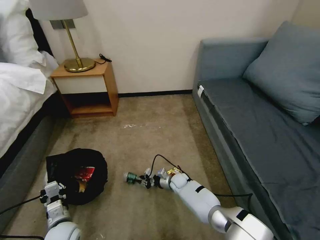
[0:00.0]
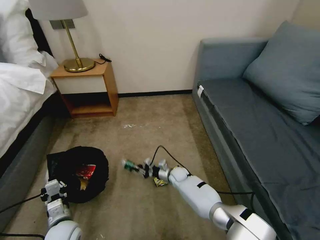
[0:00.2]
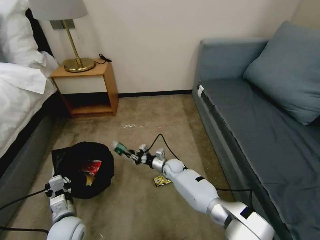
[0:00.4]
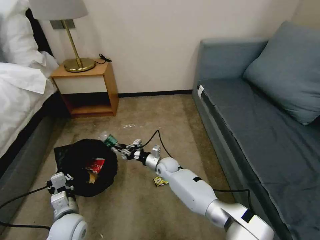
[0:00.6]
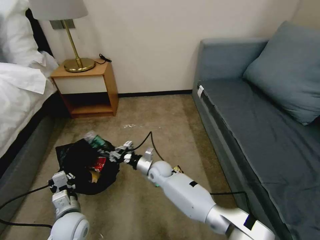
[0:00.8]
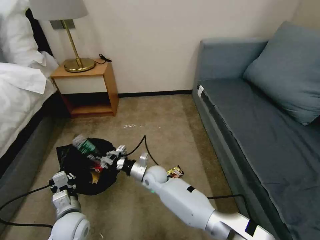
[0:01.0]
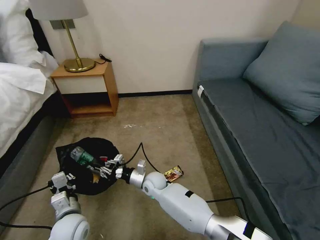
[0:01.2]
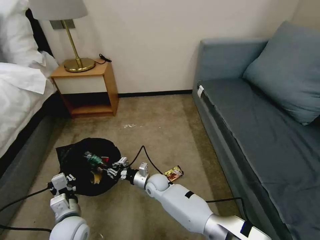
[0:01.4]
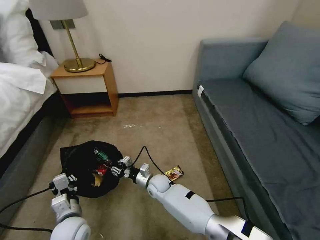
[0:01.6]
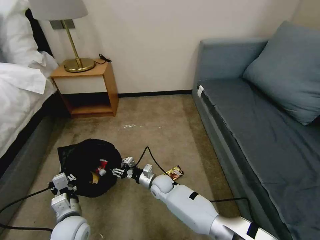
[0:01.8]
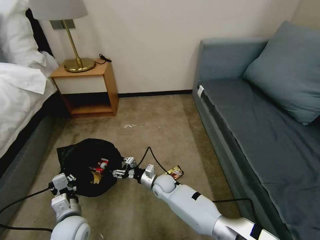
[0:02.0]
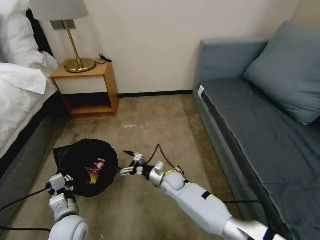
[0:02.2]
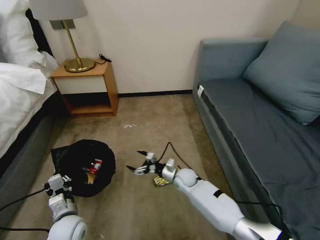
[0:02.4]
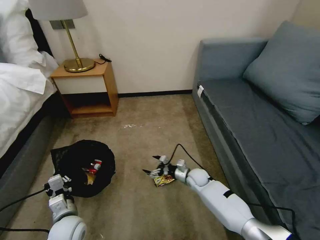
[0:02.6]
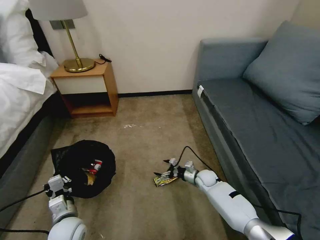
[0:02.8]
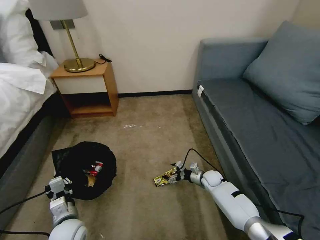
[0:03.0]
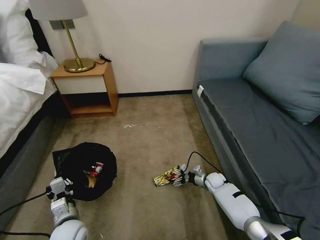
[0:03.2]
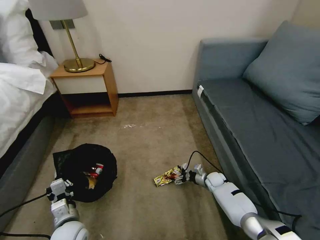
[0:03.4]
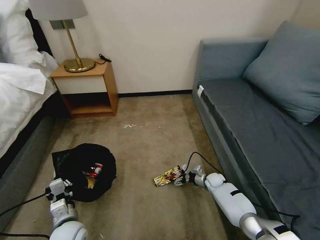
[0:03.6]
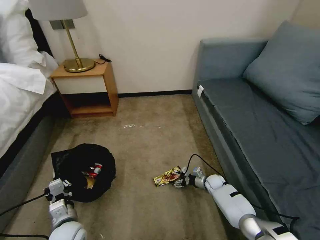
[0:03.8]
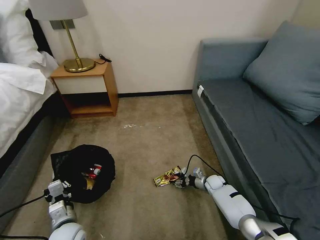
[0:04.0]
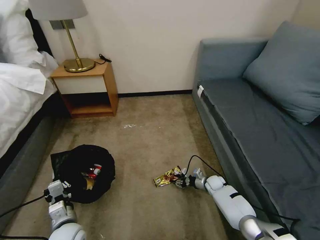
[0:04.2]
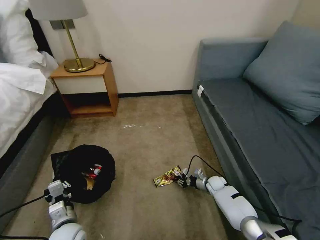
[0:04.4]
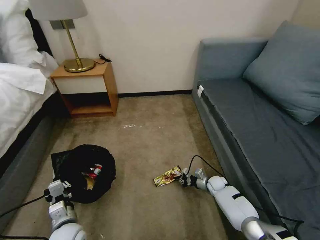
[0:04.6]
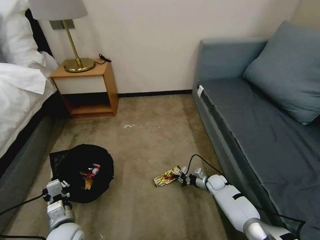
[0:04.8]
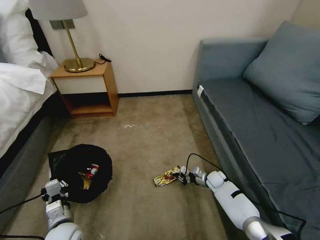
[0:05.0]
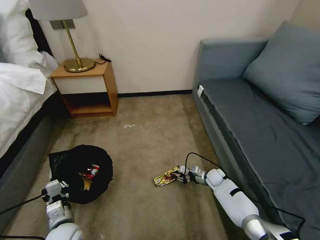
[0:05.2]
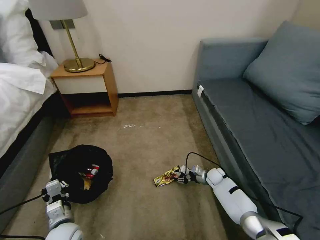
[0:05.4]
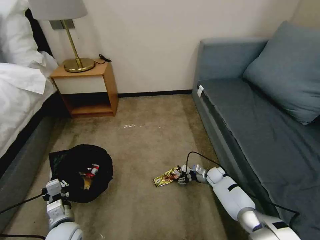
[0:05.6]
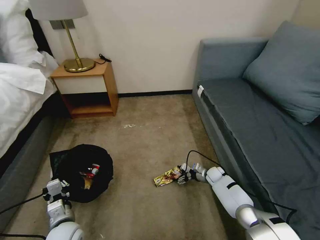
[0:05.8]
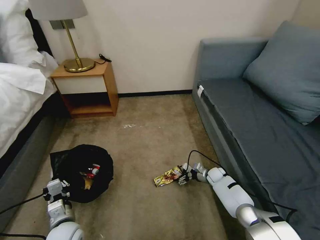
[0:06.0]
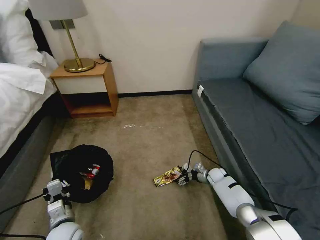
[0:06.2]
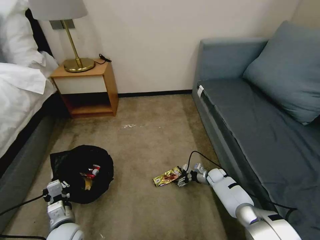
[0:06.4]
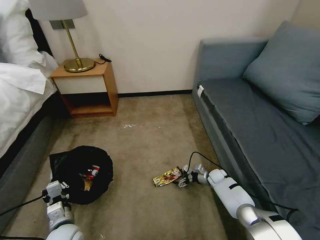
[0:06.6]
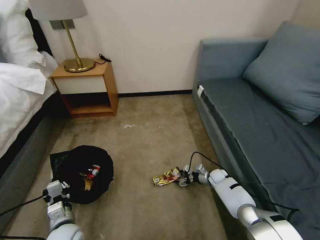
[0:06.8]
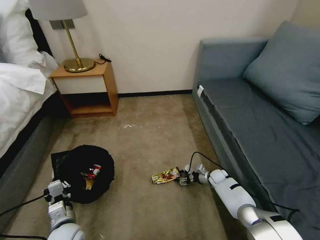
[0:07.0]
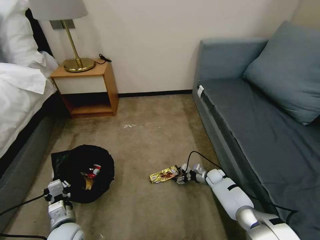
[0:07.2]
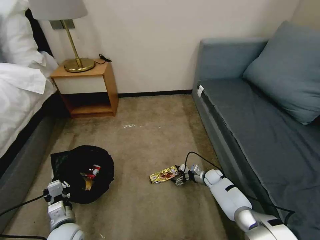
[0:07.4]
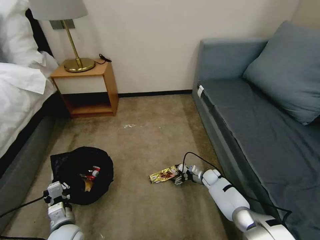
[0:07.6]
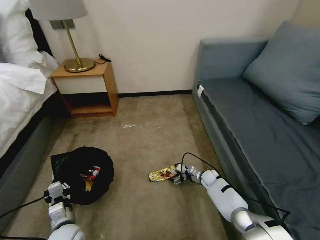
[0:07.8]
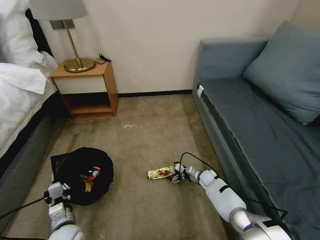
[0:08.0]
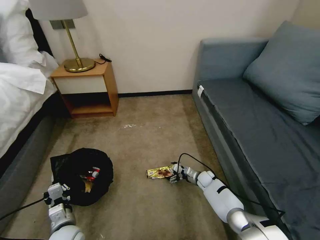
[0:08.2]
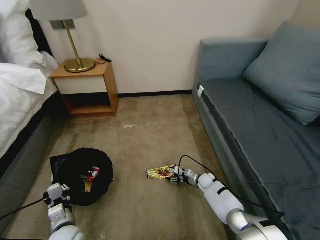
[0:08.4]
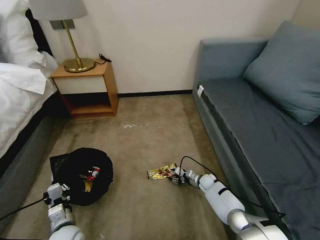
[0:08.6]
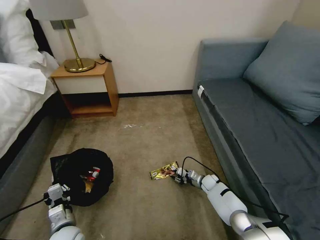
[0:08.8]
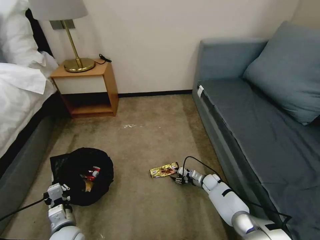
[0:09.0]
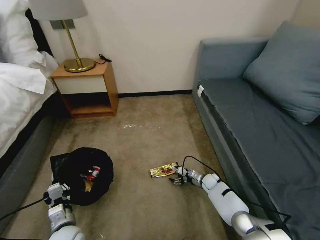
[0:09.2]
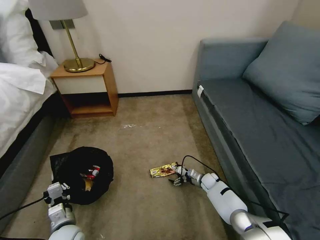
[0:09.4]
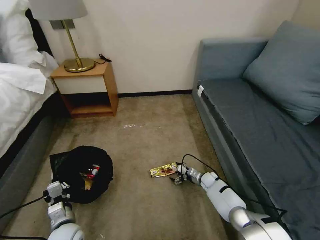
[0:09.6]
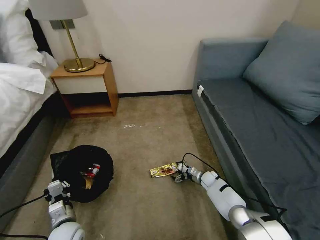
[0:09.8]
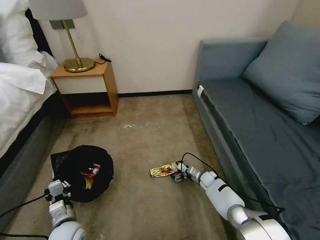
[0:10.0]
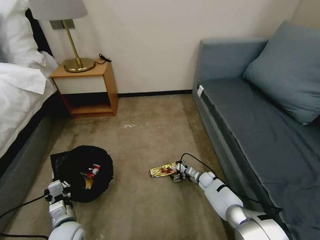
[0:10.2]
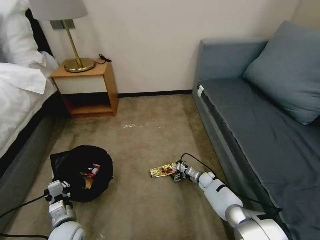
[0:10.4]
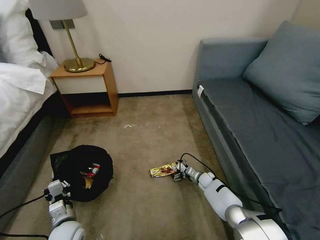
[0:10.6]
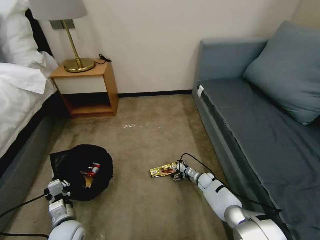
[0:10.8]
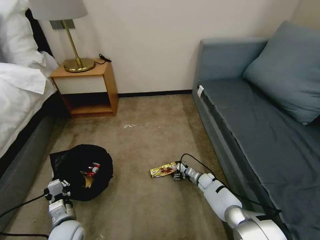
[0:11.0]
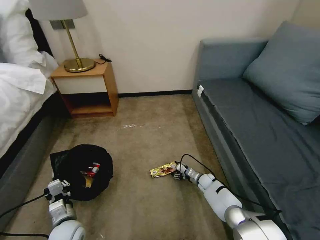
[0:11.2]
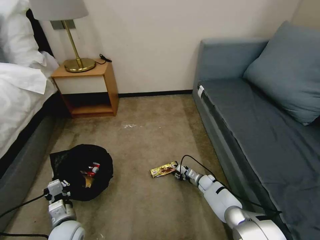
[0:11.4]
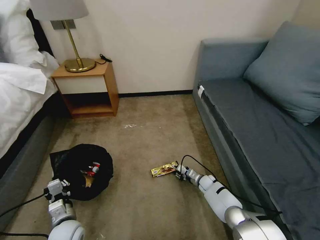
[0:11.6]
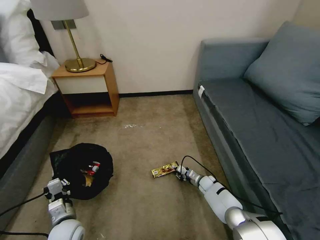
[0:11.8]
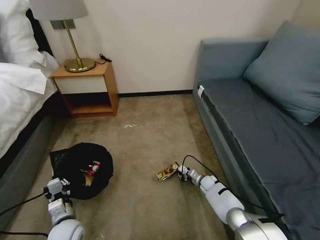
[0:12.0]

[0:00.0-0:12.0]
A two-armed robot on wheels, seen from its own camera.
Task of the whole recording: Pick up the trash bin, then pick up the garbage on the floor and place it into the trash bin.
0:00.0 to 0:01.6: The right gripper moves to the left and upward, about 15 cm; the left gripper moves upward, some 5 cm.
0:01.6 to 0:03.0: The right gripper moves to the right, approximately 25 cm, and opens its fingers.
0:03.0 to 0:04.4: The right gripper closes up.
0:04.4 to 0:06.0: The right gripper opens.
0:06.0 to 0:07.6: There are only small adjustments of the grippers.
0:07.6 to 0:09.0: The right gripper closes up.
0:09.0 to 0:10.4: The right gripper opens.
0:10.4 to 0:12.0: The right gripper closes up.

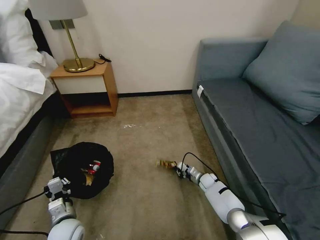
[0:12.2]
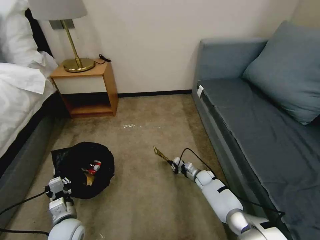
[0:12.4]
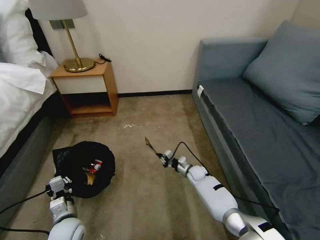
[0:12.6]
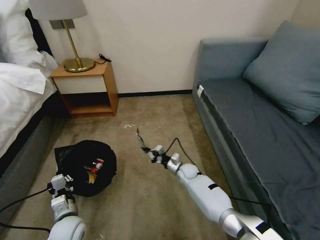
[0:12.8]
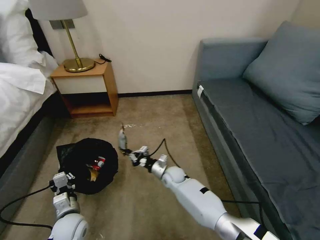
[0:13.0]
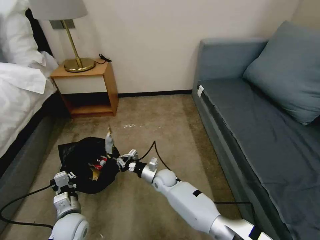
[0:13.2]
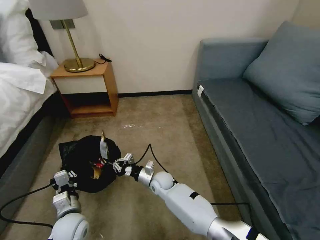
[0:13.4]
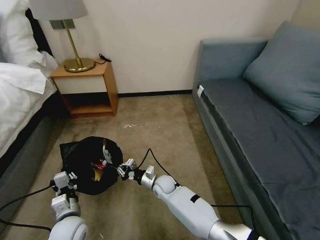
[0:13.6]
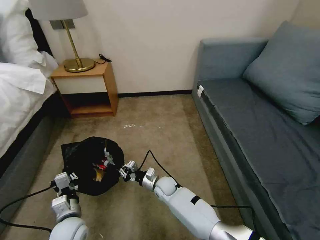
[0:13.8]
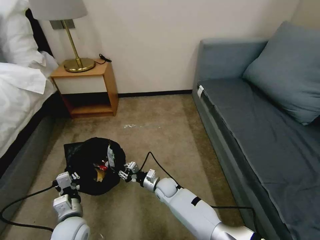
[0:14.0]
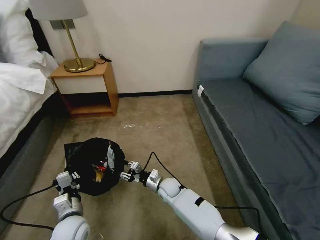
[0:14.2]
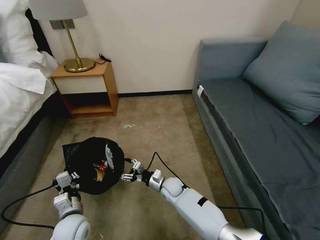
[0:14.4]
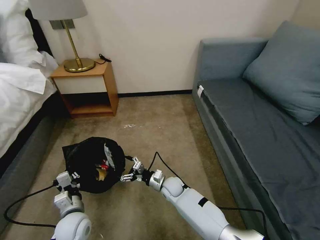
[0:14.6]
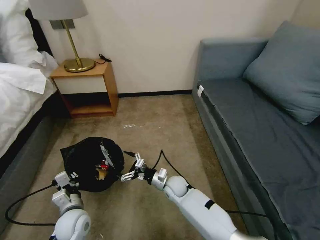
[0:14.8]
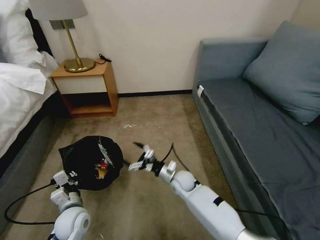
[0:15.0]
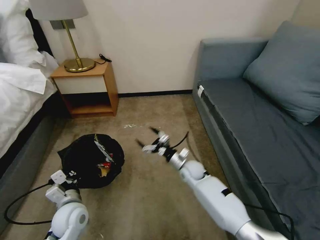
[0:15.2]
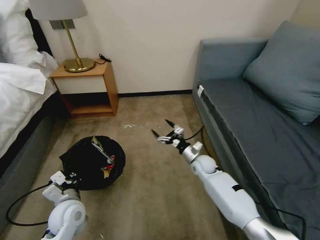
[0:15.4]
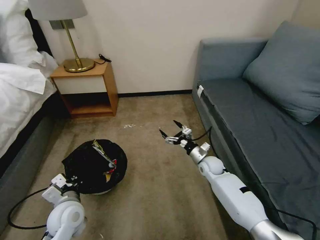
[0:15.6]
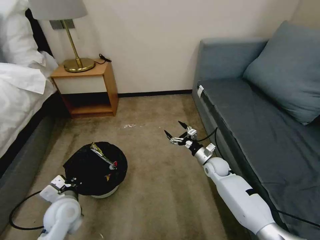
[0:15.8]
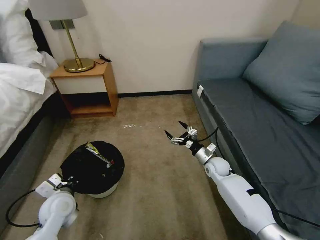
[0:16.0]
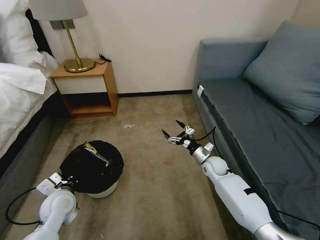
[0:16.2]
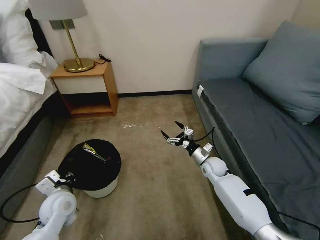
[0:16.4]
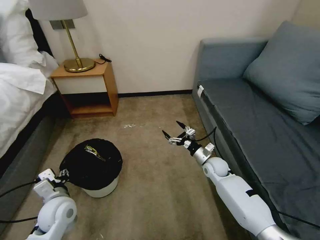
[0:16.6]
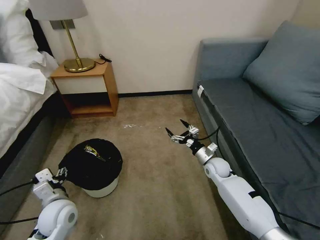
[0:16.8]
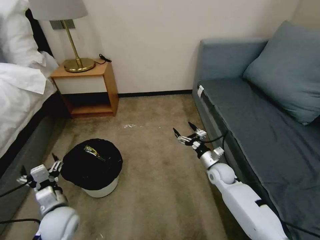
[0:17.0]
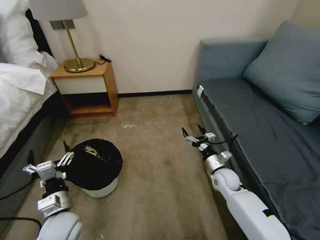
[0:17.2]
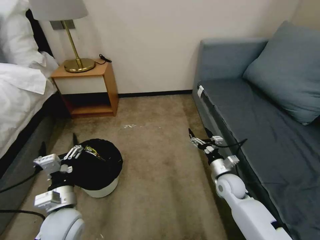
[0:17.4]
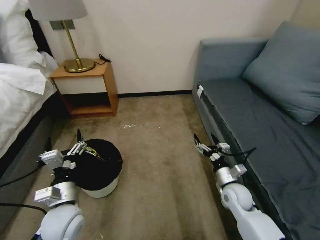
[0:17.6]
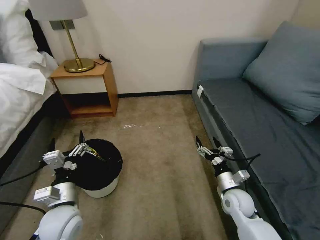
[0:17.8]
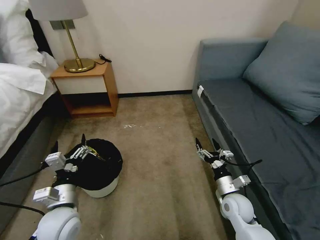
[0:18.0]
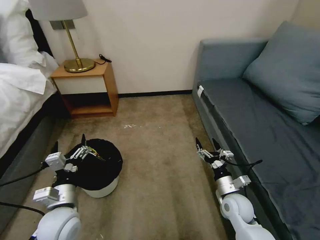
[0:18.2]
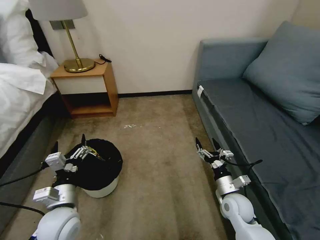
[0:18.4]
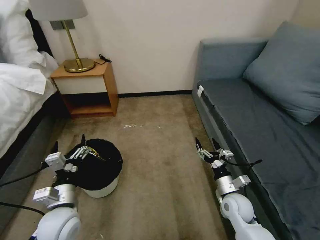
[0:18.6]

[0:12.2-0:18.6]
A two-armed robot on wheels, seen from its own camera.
Task of the whole recording: Pick up the trash bin, then pick up the garbage on the floor and place it into the trash bin.
0:12.2 to 0:13.8: The right gripper goes approximately 25 cm to the left.
0:13.8 to 0:15.4: The left gripper moves some 5 cm. The right gripper is displaced to the right, upward and forward by approximately 20 cm, and opens up.
0:15.4 to 0:17.0: The left gripper opens its fingers. The right gripper travels to the right by roughly 5 cm.
0:17.0 to 0:18.6: The right gripper moves backward, approximately 10 cm, while the left gripper moves upward, approximately 5 cm.

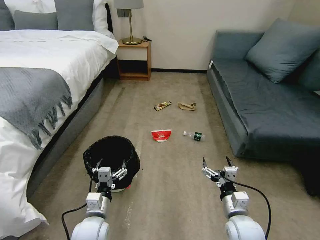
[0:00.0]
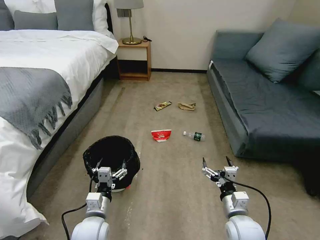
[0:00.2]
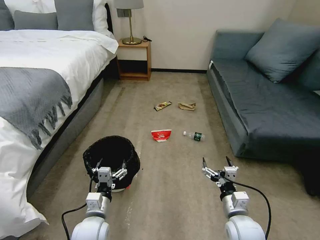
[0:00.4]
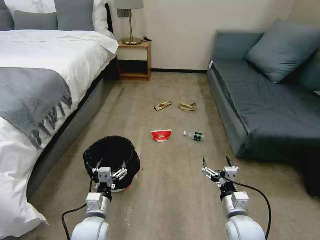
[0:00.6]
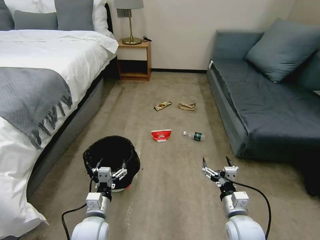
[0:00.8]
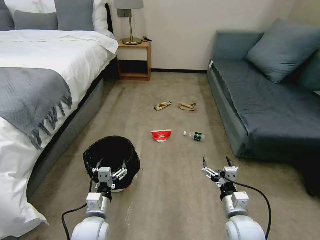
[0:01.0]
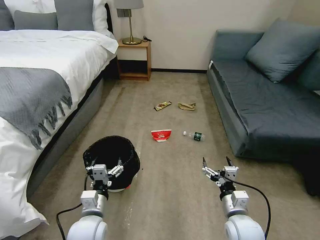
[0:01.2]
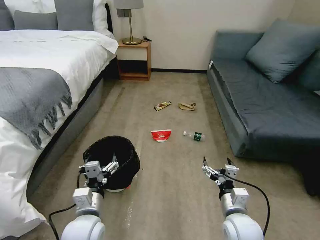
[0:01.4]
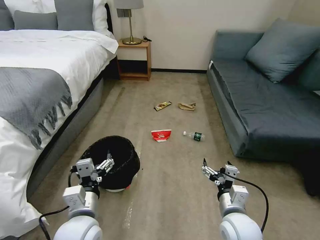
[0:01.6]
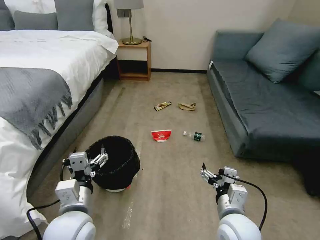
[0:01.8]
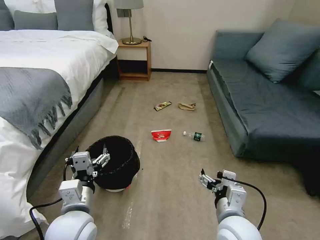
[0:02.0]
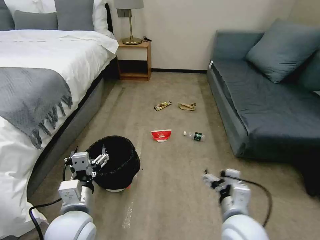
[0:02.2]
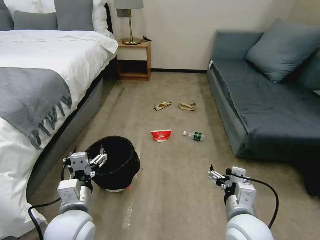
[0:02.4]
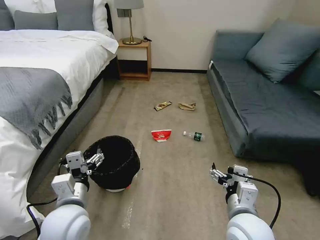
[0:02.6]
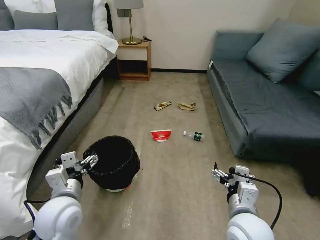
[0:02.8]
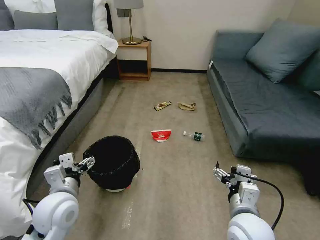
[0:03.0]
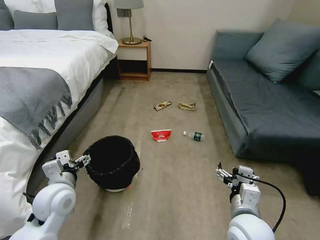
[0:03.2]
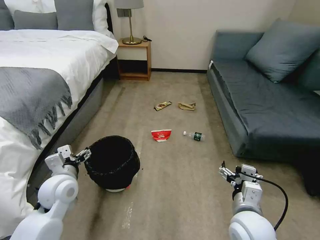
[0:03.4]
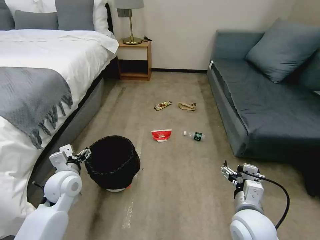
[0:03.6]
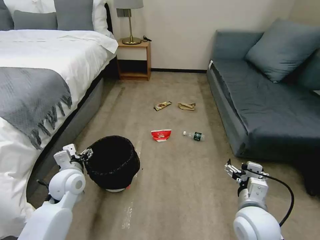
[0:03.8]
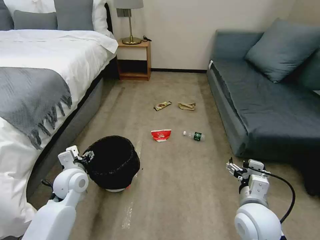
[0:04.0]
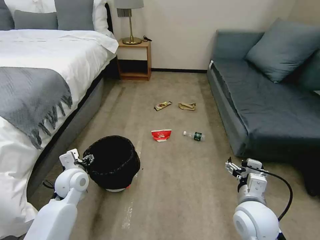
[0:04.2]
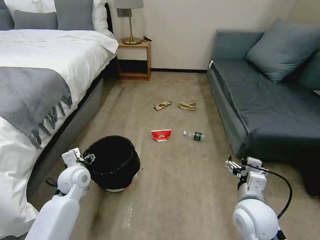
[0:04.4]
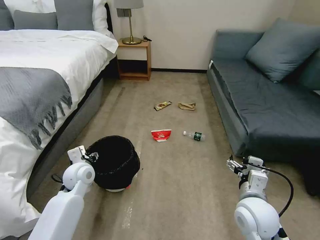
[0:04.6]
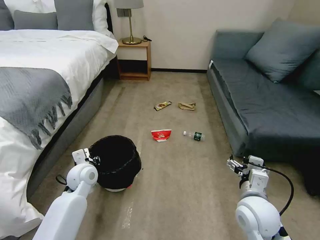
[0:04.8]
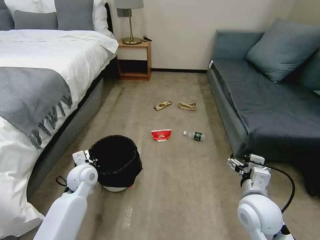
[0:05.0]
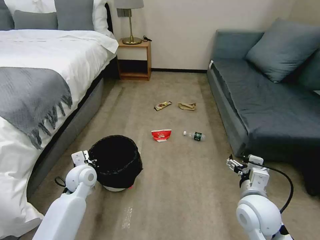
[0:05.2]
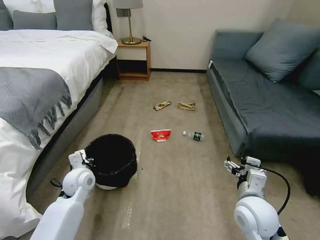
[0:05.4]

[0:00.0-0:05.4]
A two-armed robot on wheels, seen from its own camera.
Task of the whole recording: Pick up the trash bin, then pick up the garbage on the floor and place it into the trash bin.
0:01.4 to 0:02.8: The two grippers go approximately 5 cm upward.
0:02.8 to 0:04.0: The left gripper goes roughly 10 cm forward.
0:04.0 to 0:05.4: The left gripper closes.
